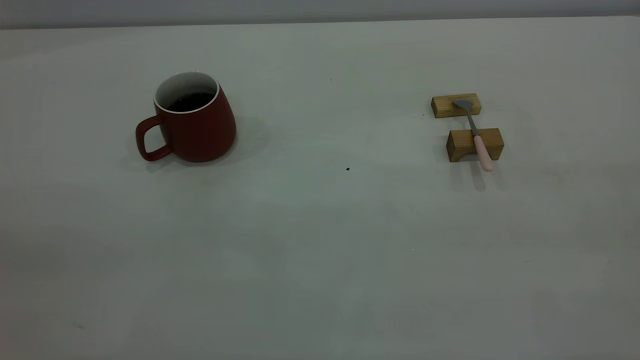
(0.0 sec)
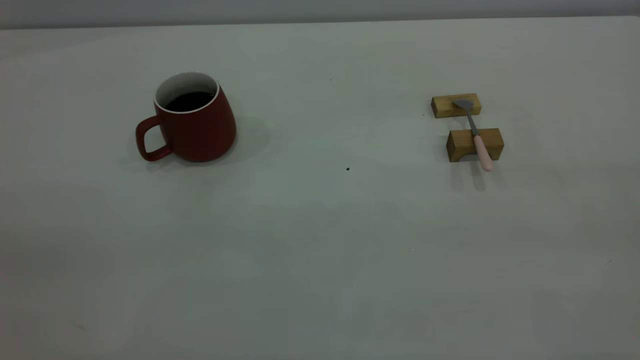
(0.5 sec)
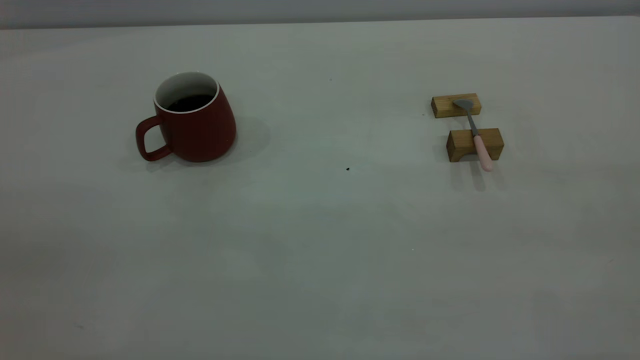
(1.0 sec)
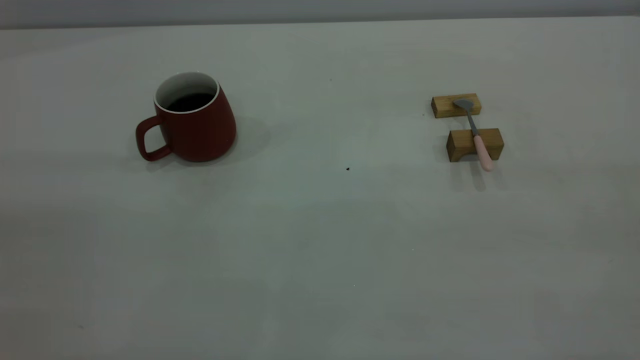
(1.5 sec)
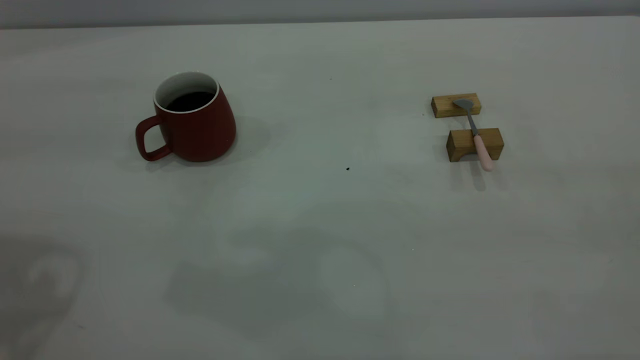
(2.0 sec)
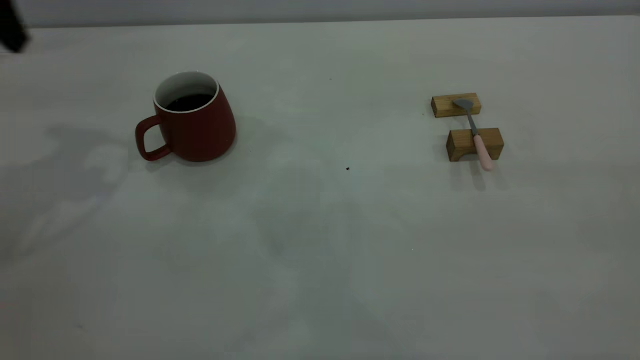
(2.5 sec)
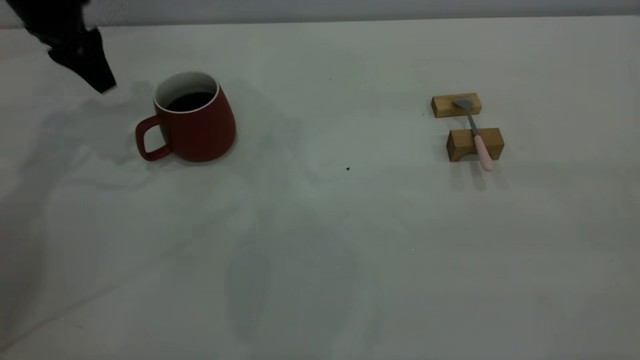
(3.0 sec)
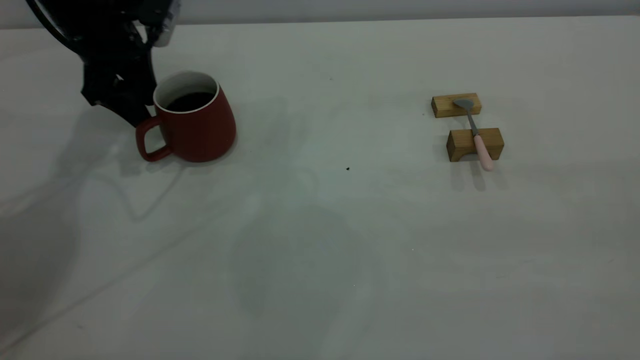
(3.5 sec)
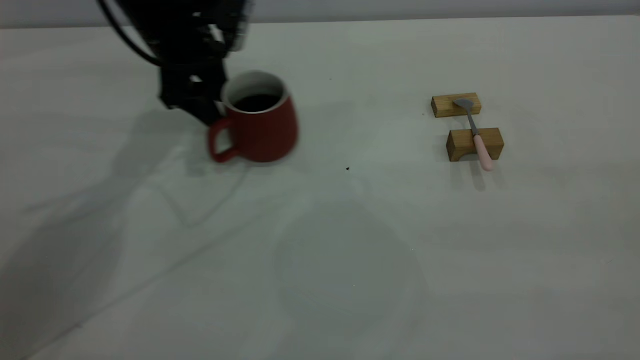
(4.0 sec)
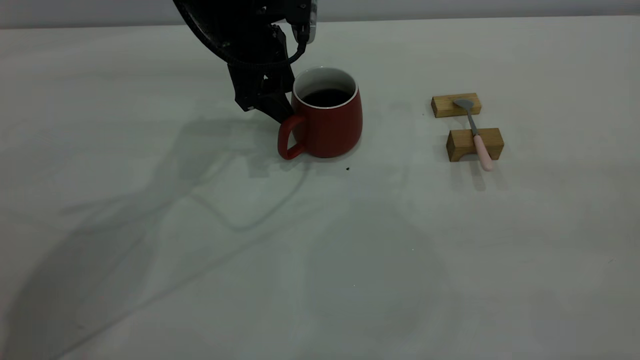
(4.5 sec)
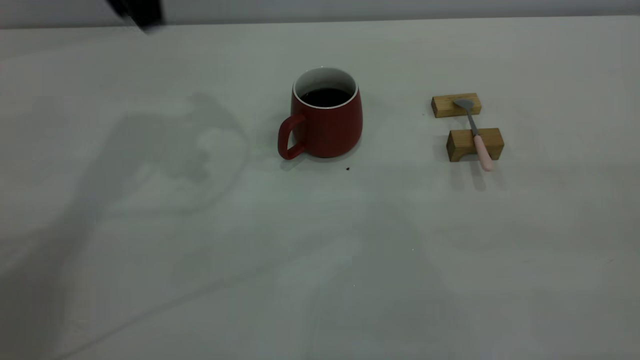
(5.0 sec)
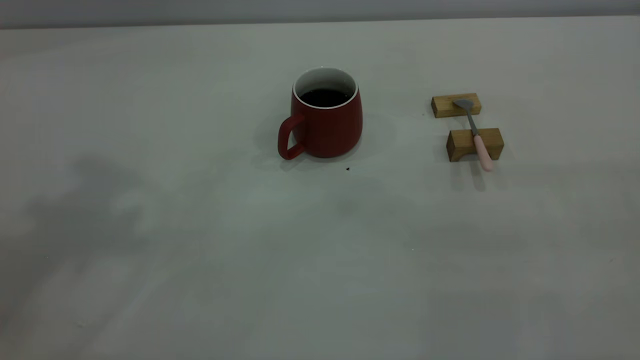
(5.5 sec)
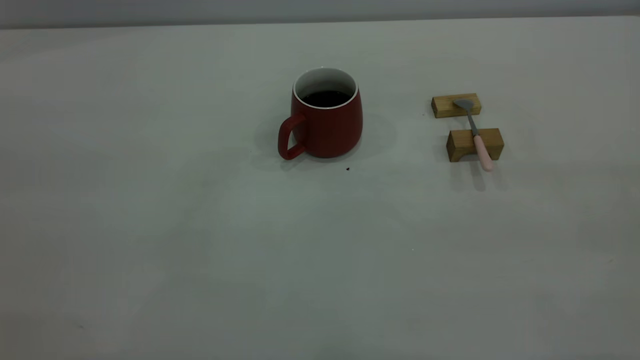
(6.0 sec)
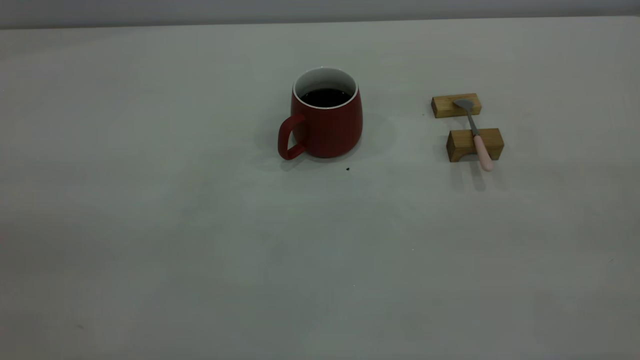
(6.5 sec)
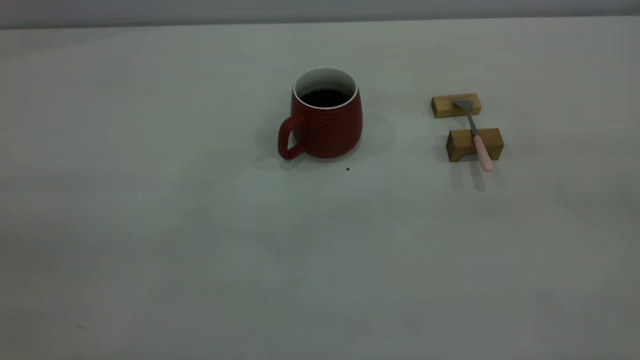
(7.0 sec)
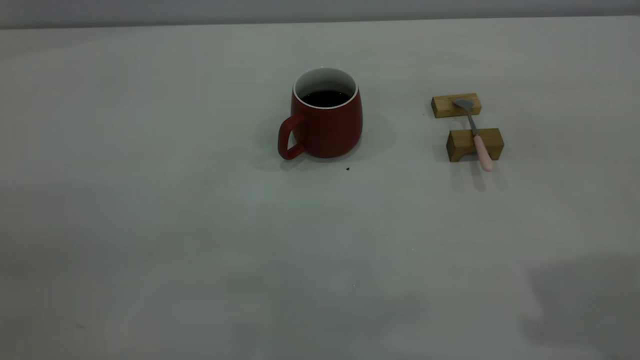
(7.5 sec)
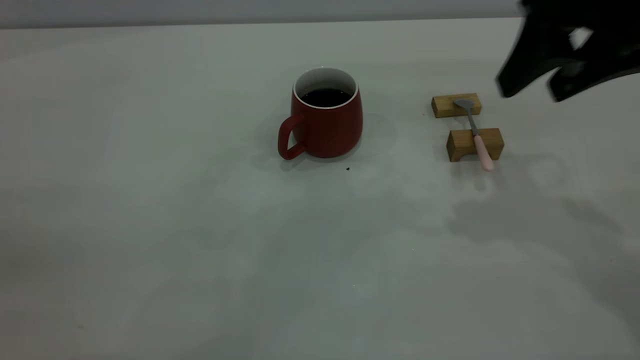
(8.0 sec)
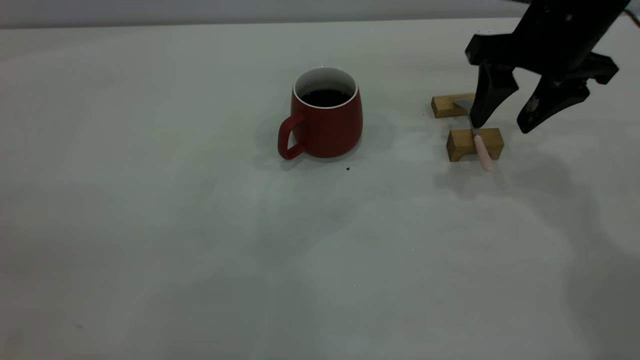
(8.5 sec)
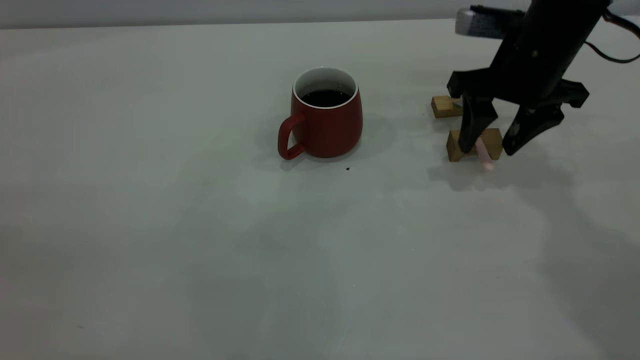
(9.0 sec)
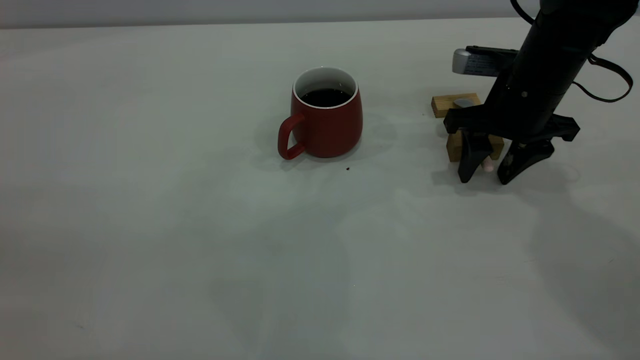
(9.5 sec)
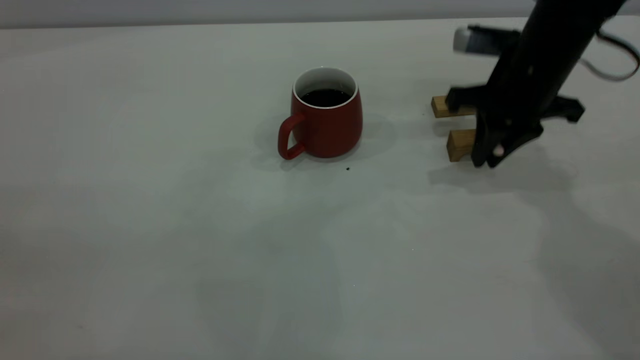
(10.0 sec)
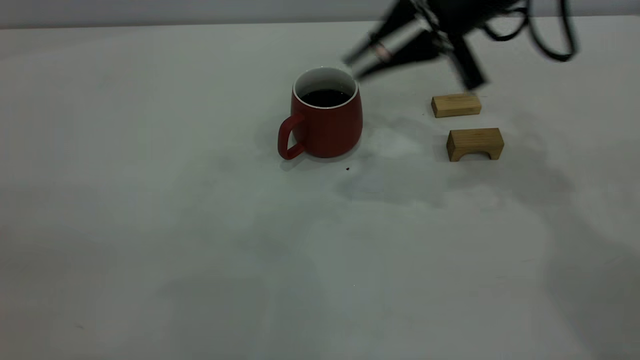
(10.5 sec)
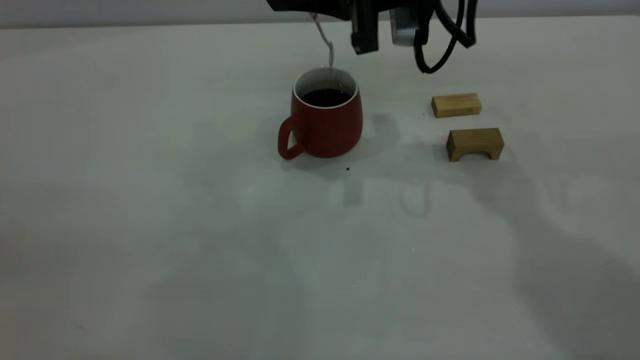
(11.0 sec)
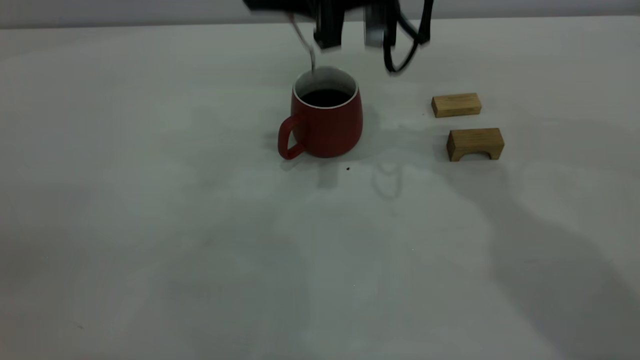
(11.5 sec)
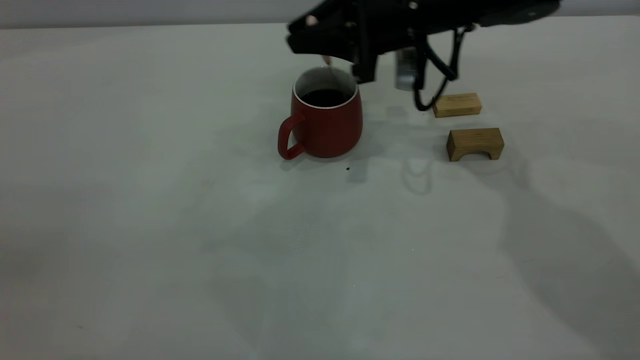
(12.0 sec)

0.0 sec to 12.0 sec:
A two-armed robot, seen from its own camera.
Step, 0.0 sec to 4.5 sec: Move the cup with coffee to the center of view.
Step, 5.0 sec to 10.0 sec: Pick up the spoon.
2.0 sec to 4.0 sec: The left gripper heads forward, downward and to the right, covering about 35 cm.
4.0 sec to 6.0 sec: The left gripper is displaced backward and upward by approximately 50 cm.
6.0 sec to 8.0 sec: The right gripper goes approximately 30 cm forward, and opens.
8.0 sec to 10.0 sec: The right gripper travels downward and forward by approximately 15 cm, and closes.
10.0 sec to 12.0 sec: The right gripper moves to the left, about 10 cm.

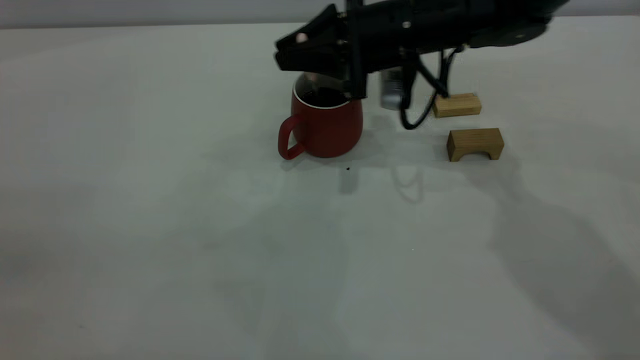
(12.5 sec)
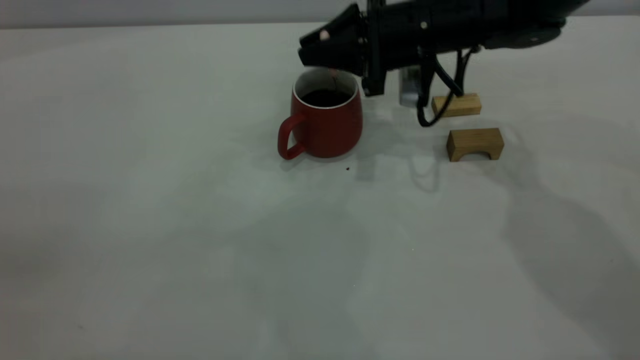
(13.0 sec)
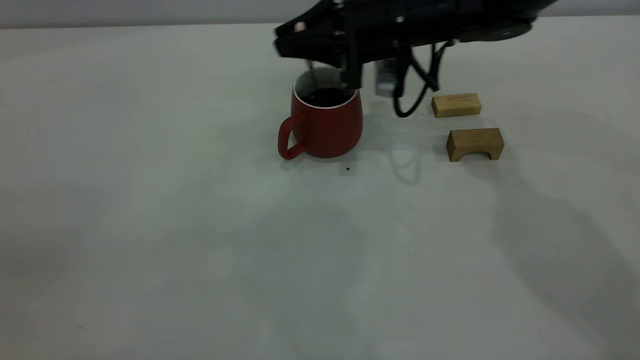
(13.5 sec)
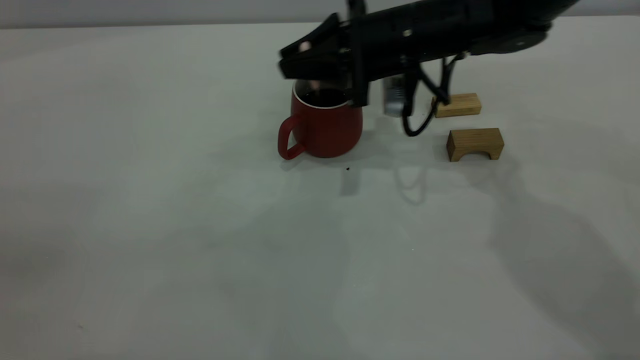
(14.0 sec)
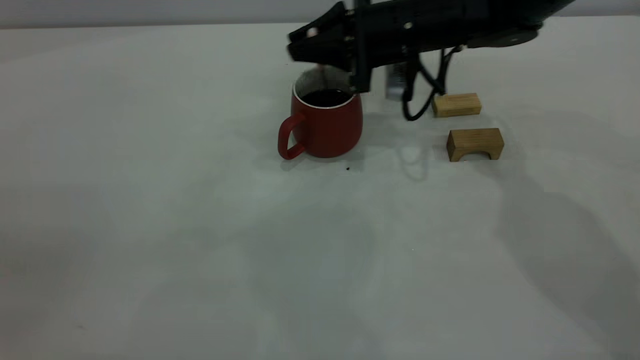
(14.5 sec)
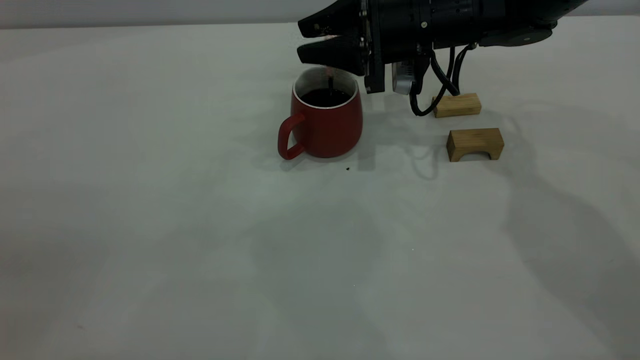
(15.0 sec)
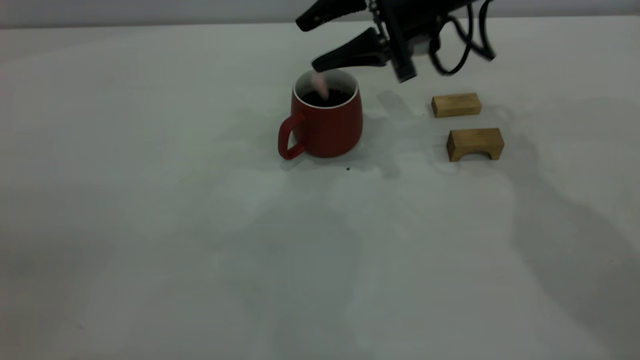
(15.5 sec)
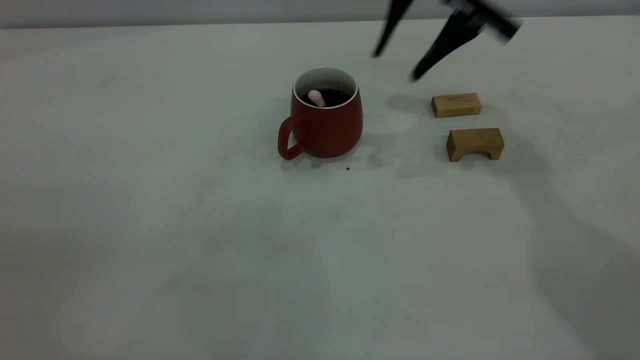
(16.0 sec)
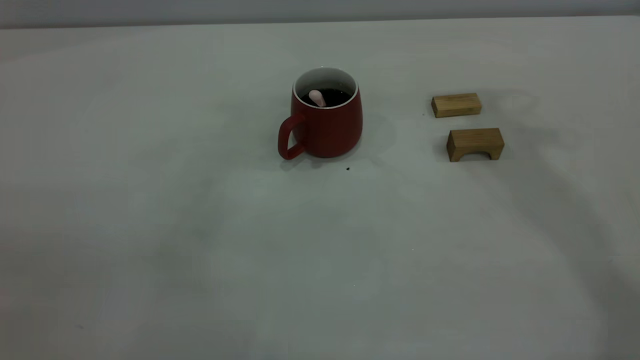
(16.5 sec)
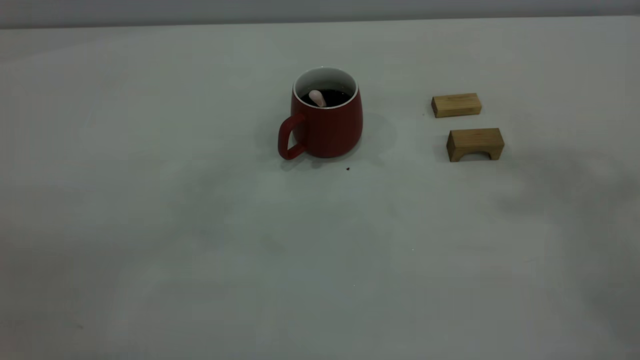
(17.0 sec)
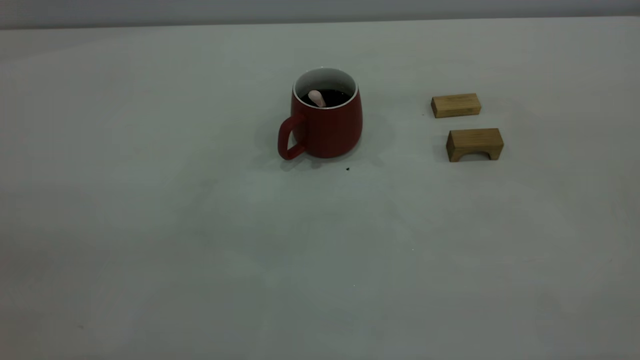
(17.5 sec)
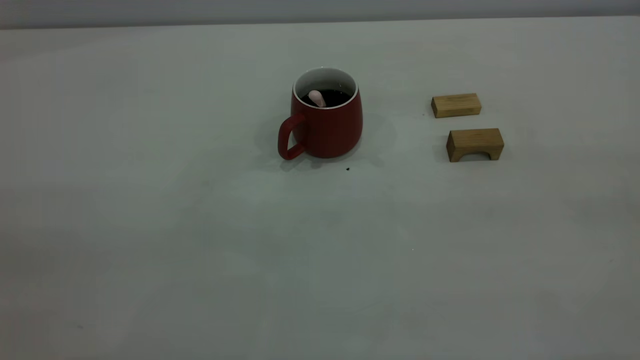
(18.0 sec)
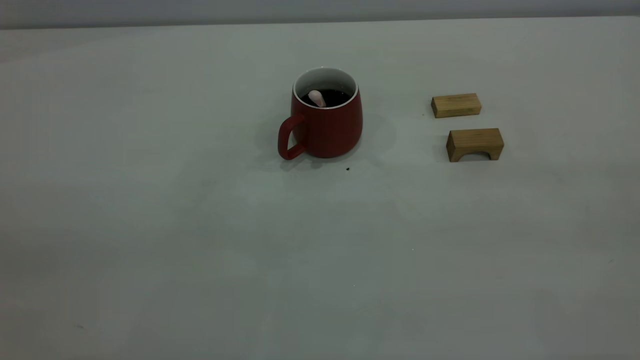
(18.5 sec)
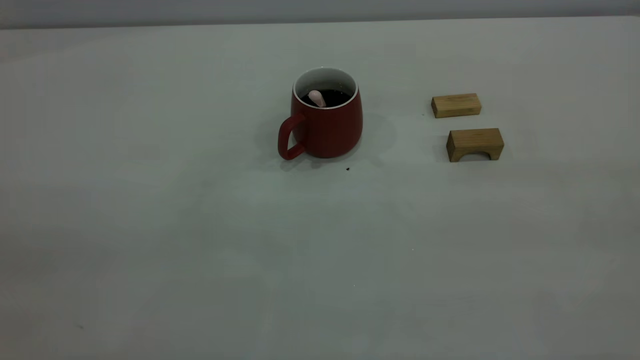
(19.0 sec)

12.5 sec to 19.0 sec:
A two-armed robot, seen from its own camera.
Step, 12.5 sec to 15.5 sec: Stir the coffee in the cup.
12.5 sec to 14.5 sec: The grippers make only small movements.
14.5 sec to 17.0 sec: The right gripper travels upward and backward by approximately 50 cm, and opens, then closes again.
